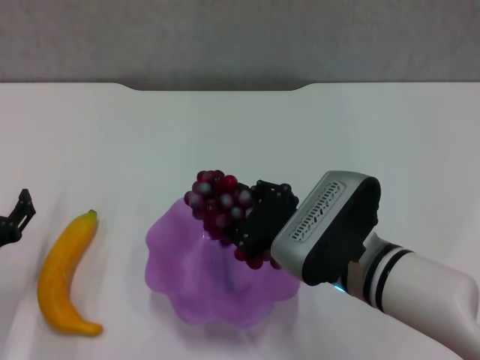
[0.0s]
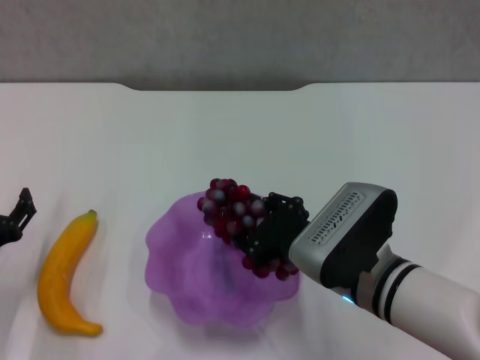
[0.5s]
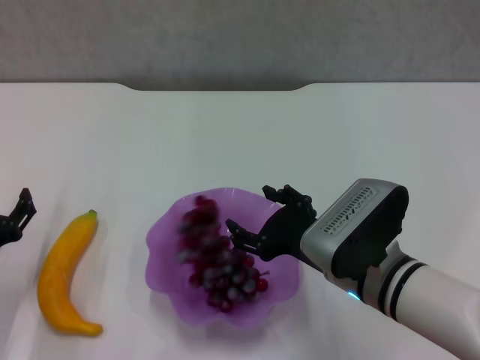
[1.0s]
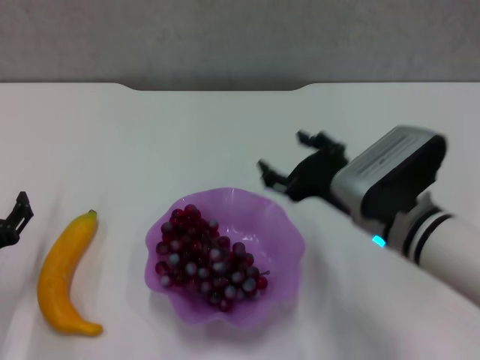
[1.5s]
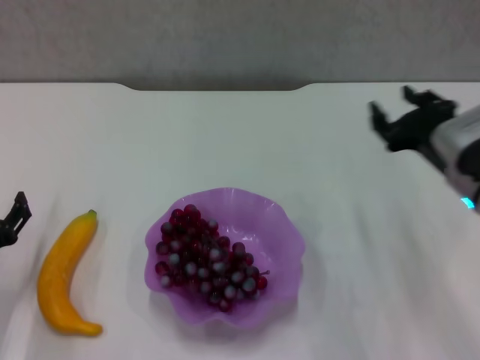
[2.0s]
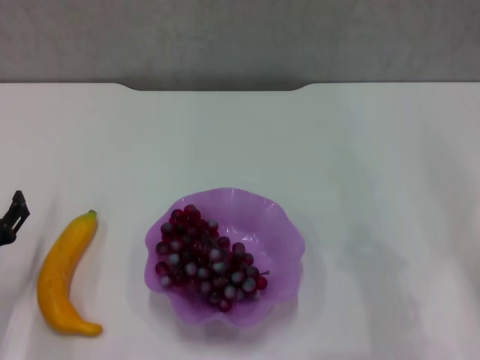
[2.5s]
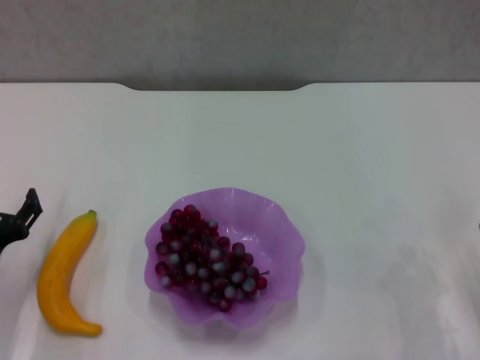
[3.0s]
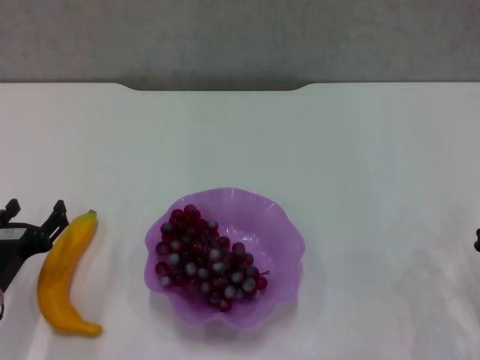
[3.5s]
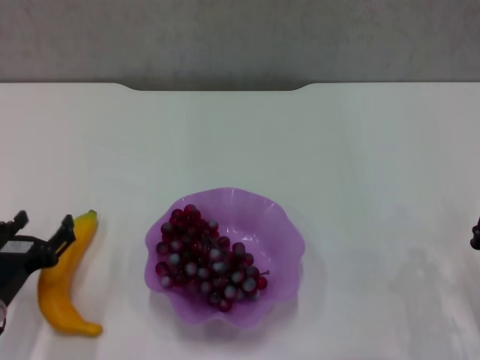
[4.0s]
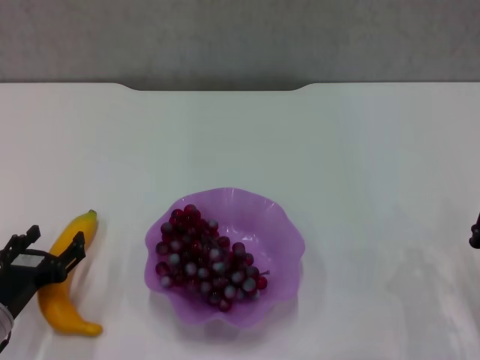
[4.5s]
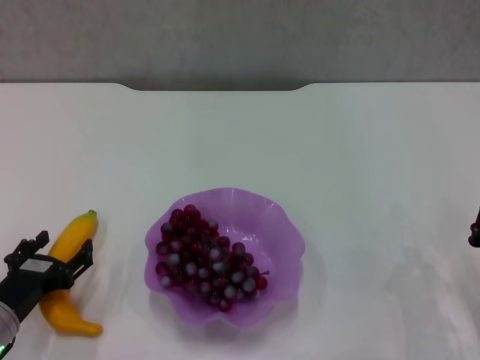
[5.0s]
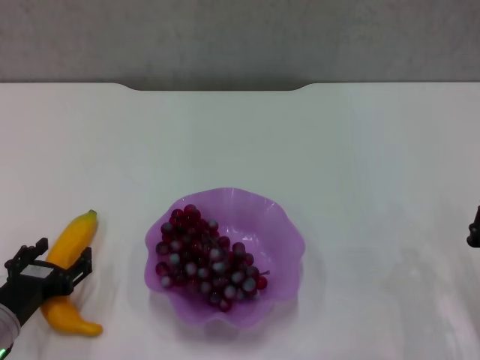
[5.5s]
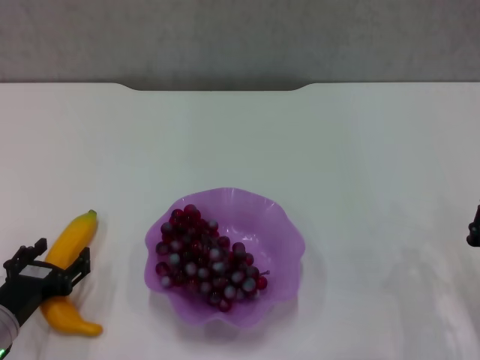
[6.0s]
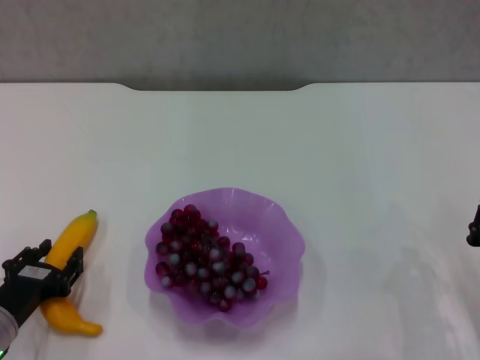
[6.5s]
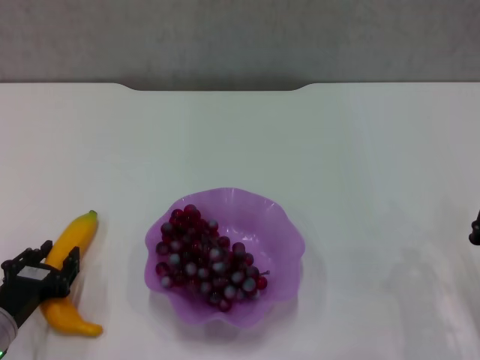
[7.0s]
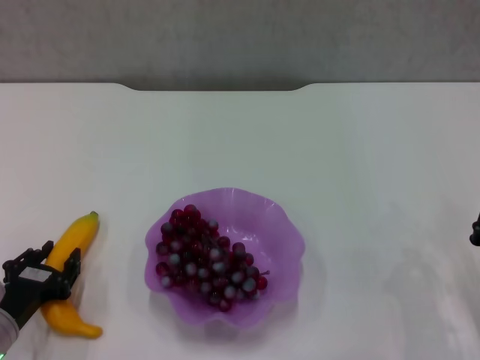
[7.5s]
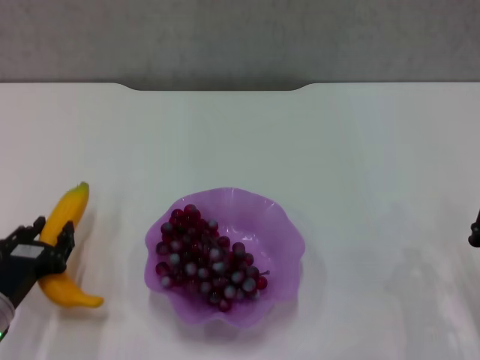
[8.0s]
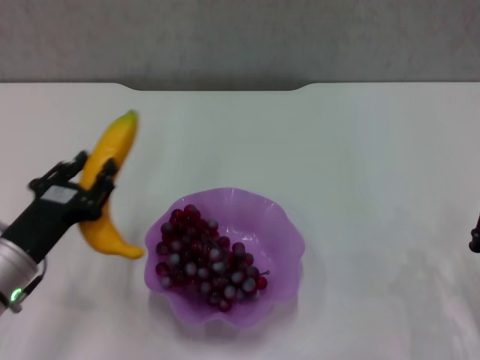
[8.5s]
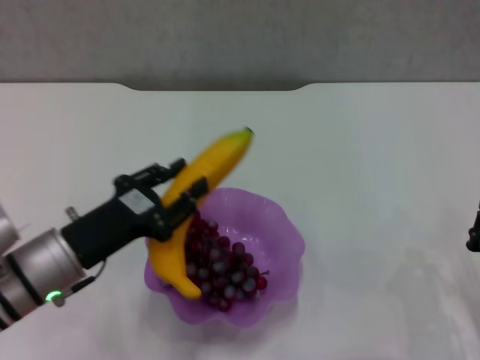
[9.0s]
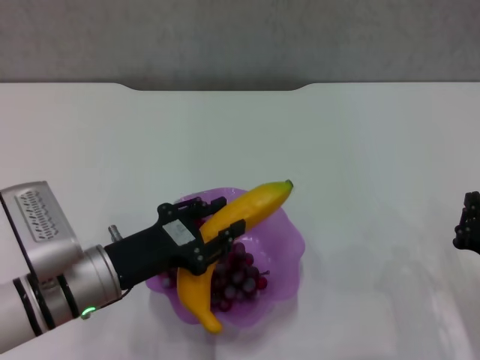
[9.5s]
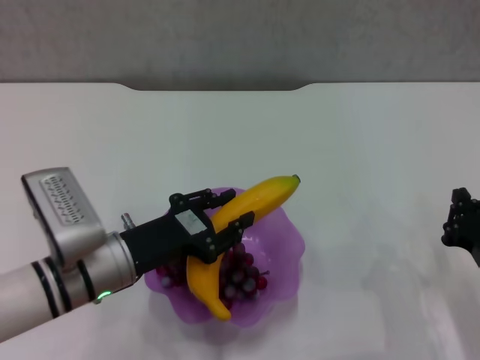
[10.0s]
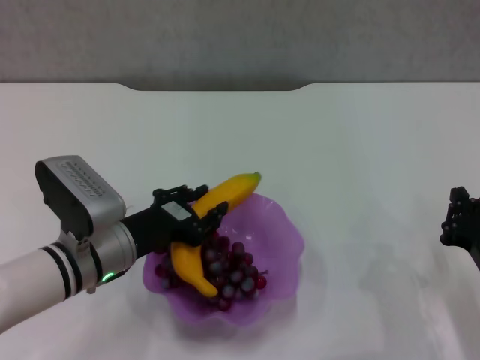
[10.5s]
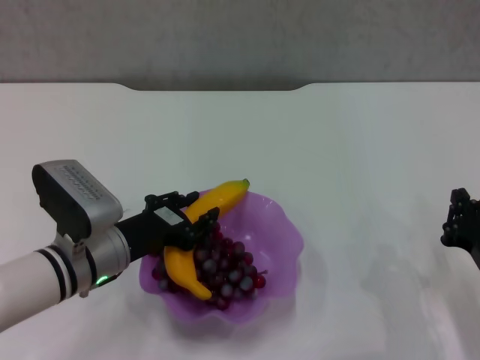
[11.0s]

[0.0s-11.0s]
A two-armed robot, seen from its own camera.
Step, 1.5s to 7.0s: Grasp the banana with left gripper.
0.0s to 2.0s: The right gripper is displaced to the right and forward by approximately 15 cm.
2.0s to 3.5s: The right gripper moves backward, downward and to the right, approximately 15 cm, and closes up.
3.5s to 5.5s: The grippers move only a little.
5.5s to 7.5s: The left gripper closes up.
7.5s to 9.0s: The left gripper shifts approximately 10 cm upward and to the right.
9.0s to 11.0s: The left gripper shifts by some 5 cm.

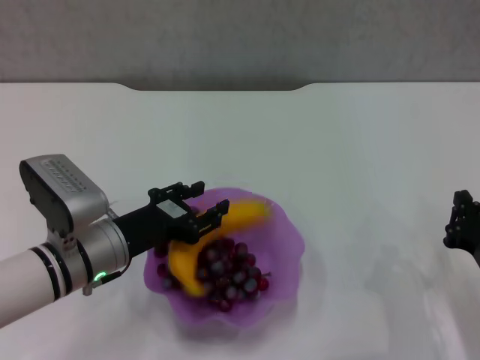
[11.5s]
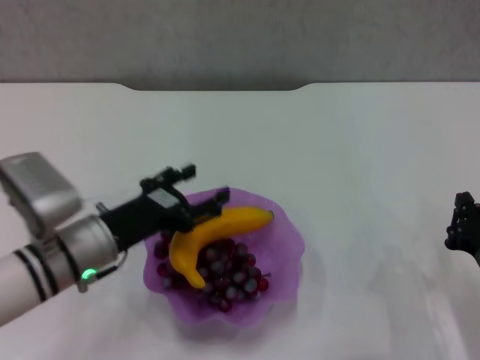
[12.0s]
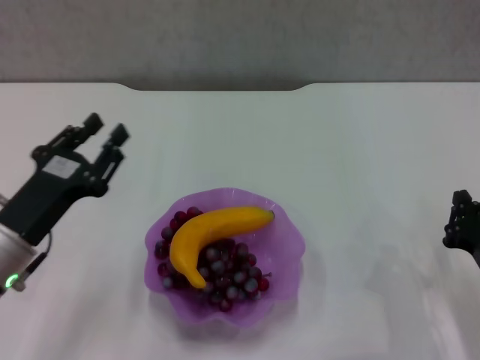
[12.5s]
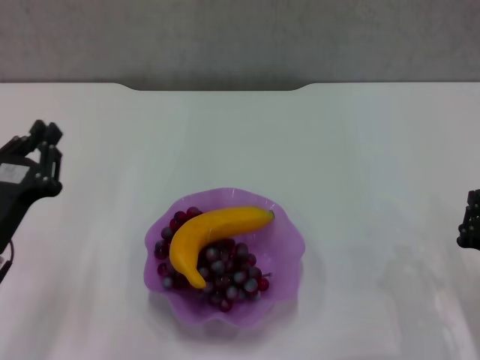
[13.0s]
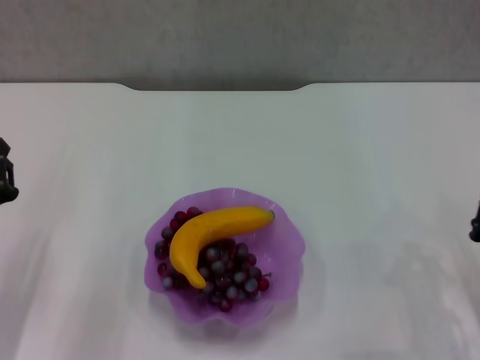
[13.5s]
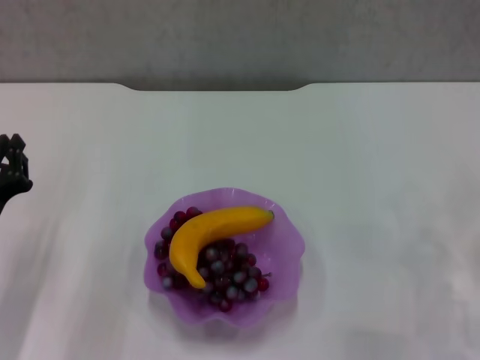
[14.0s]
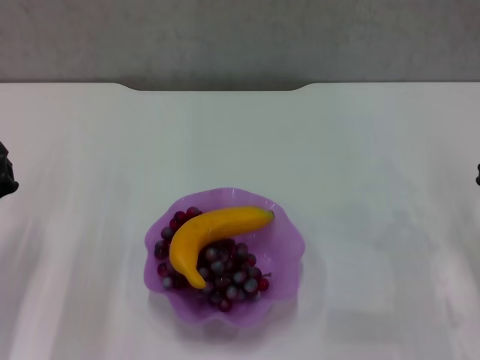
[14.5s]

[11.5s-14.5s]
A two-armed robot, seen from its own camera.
11.5s to 13.0s: The left gripper goes about 10 cm to the left and backward, and closes its fingers.
13.0s to 14.5s: The right gripper is displaced forward by roughly 5 cm.
